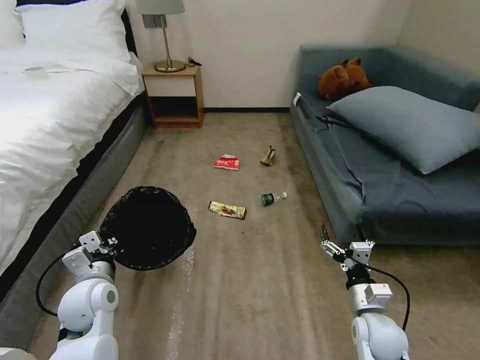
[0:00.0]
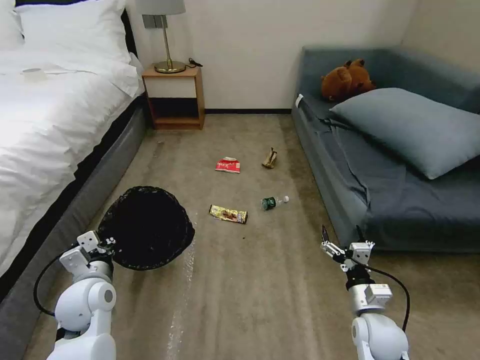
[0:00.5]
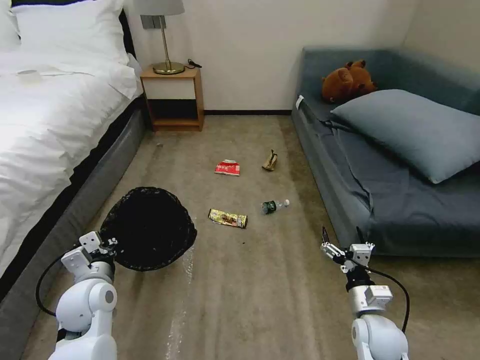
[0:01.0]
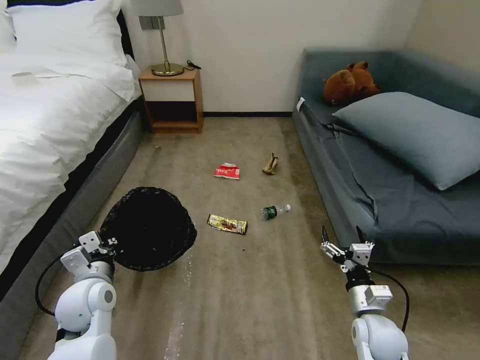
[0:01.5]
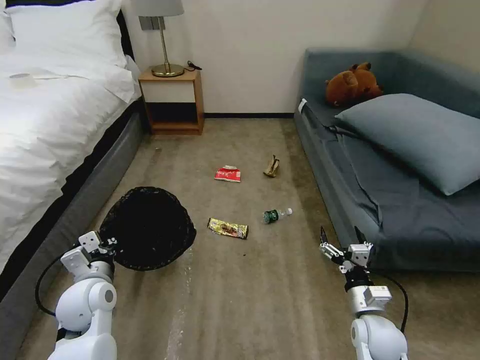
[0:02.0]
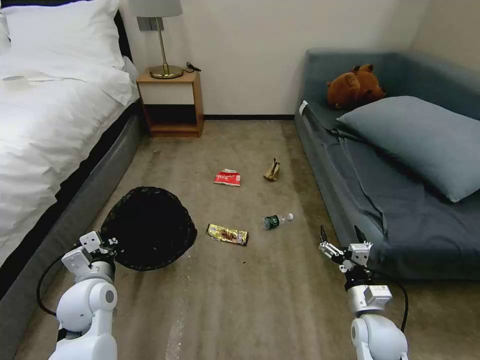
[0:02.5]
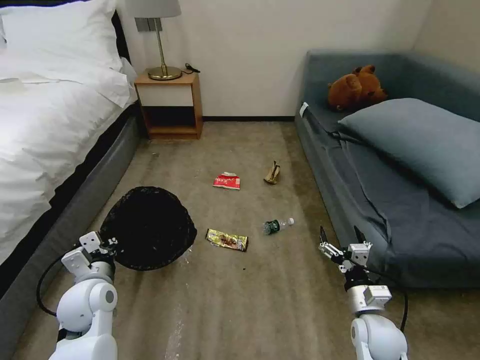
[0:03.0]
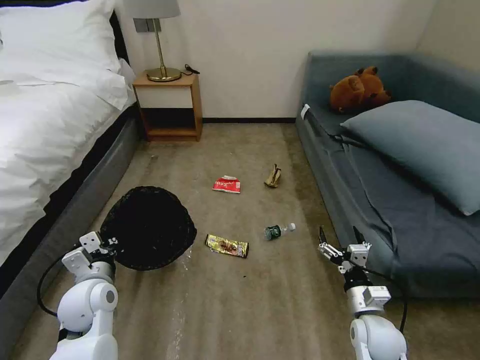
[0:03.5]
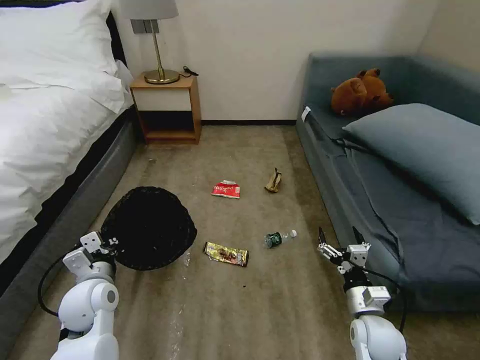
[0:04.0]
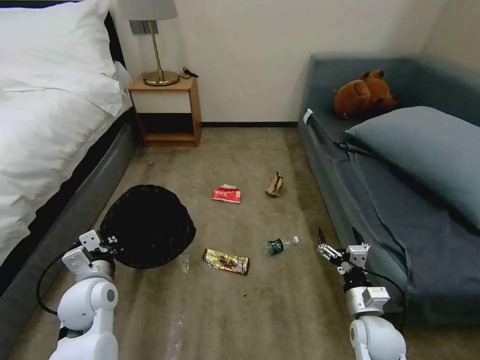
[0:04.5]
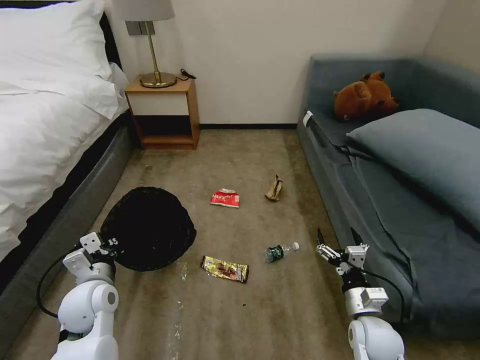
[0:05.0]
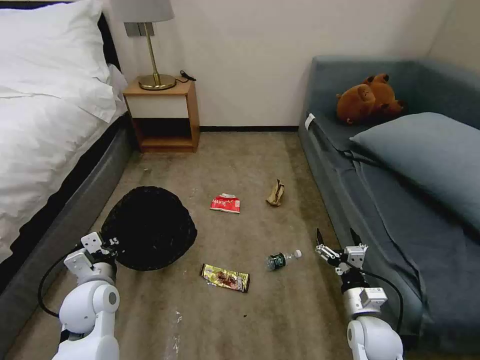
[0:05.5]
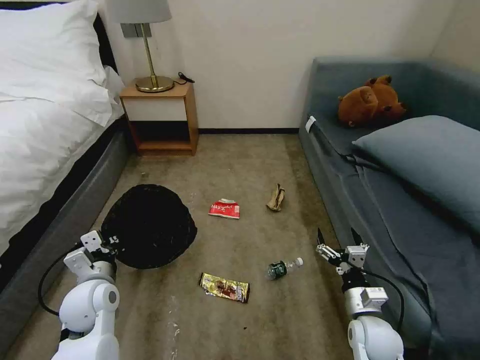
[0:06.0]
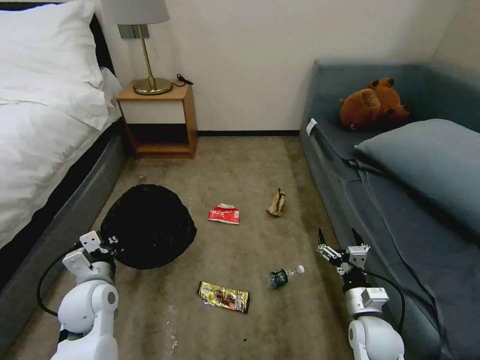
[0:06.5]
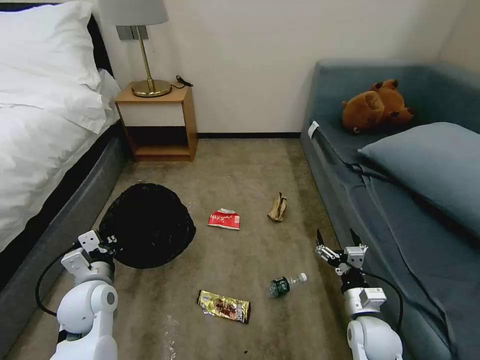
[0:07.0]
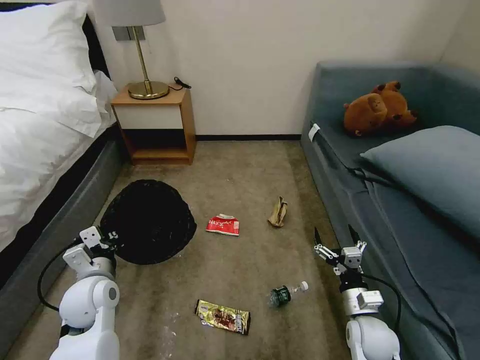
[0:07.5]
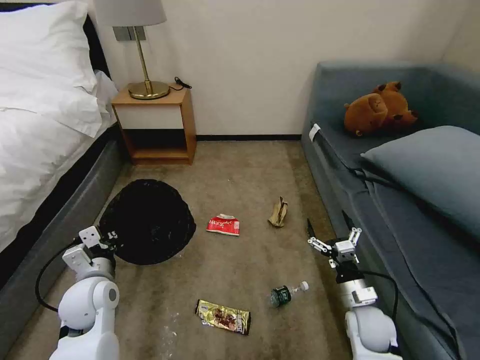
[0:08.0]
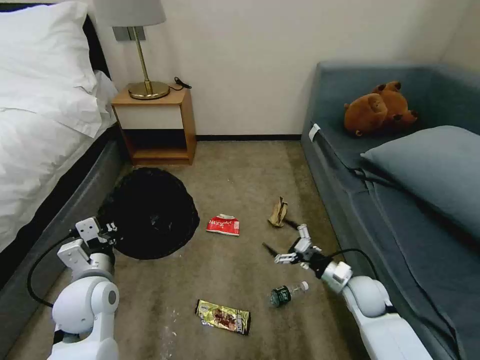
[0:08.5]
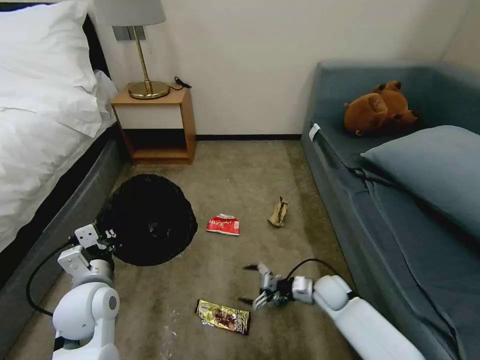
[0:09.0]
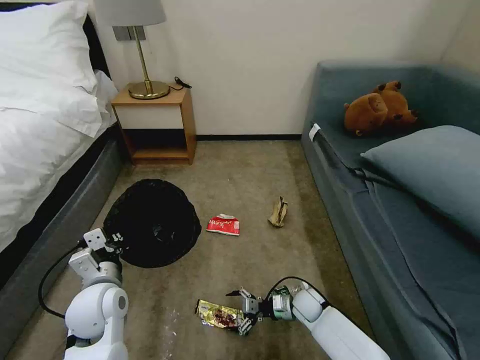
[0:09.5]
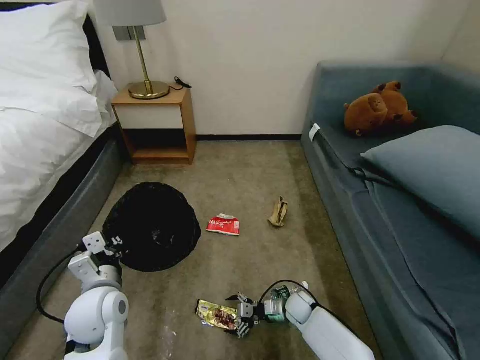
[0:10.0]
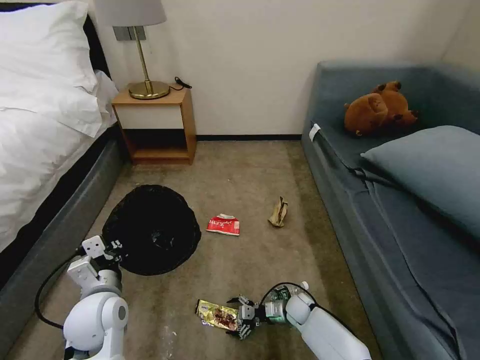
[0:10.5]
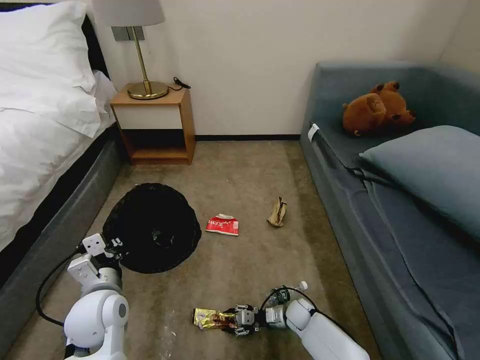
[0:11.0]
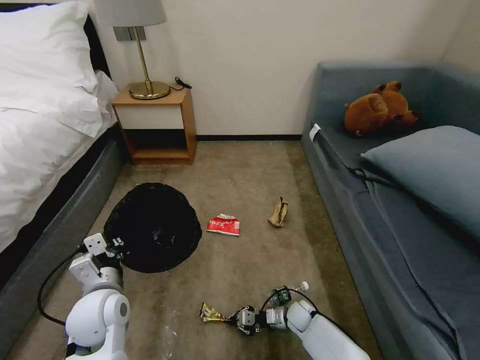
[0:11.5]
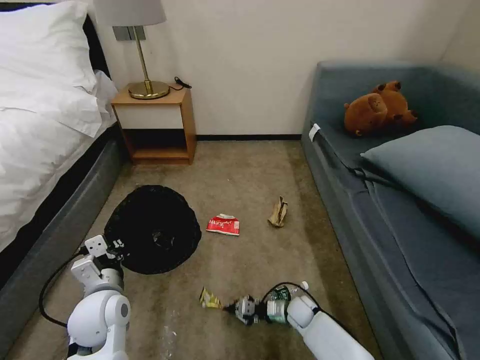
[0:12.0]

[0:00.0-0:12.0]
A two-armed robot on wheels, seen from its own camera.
Task of the whole recording: Pick up the trash bin, then pick up the garbage on the floor and place it into the trash bin.
0:00.0 to 0:02.0: The two grippers keep their place.
0:08.0 to 0:10.0: The right gripper goes about 20 cm downward, to the left and forward.
0:10.0 to 0:12.0: The right gripper closes up.

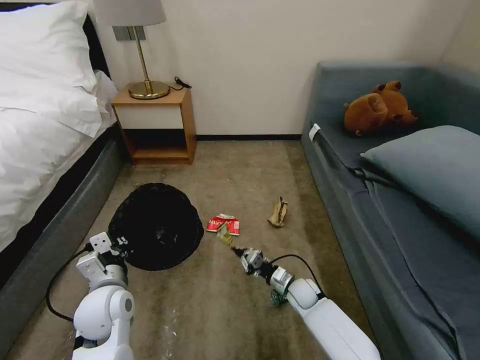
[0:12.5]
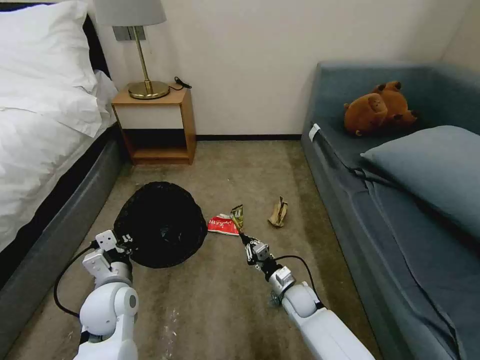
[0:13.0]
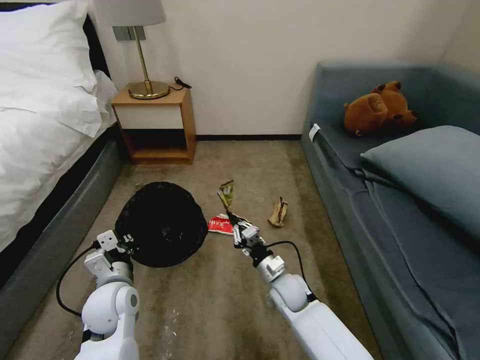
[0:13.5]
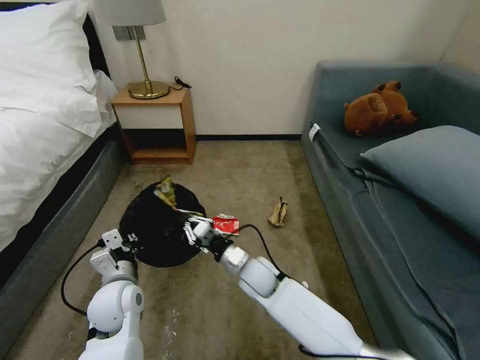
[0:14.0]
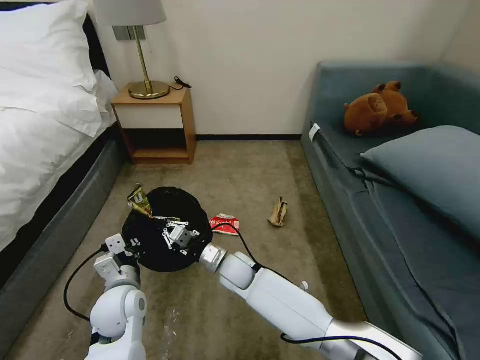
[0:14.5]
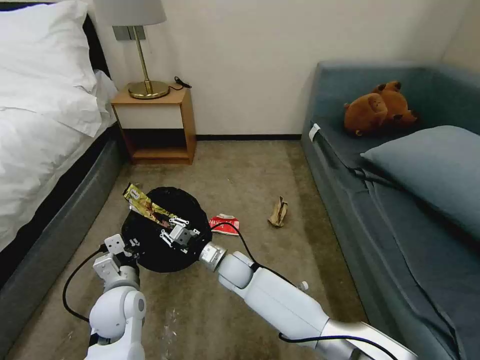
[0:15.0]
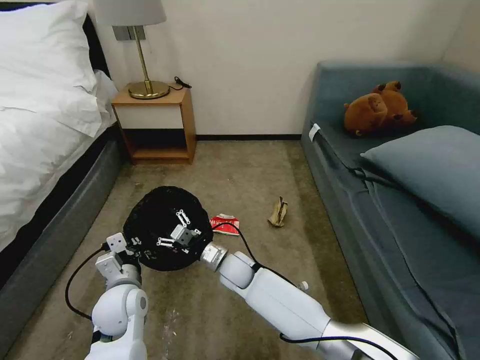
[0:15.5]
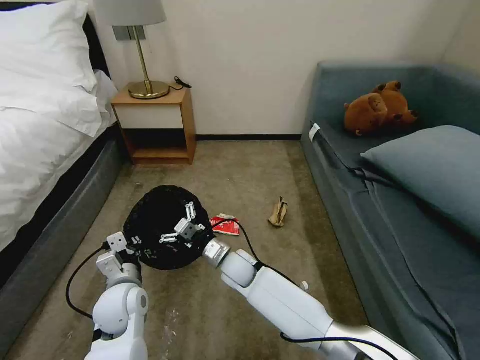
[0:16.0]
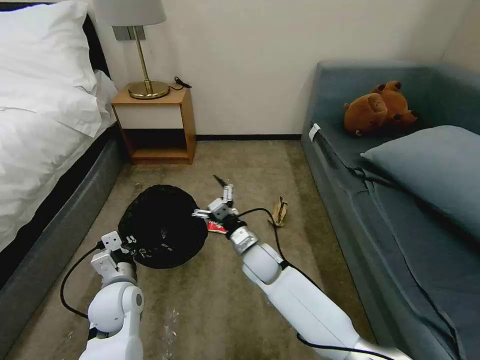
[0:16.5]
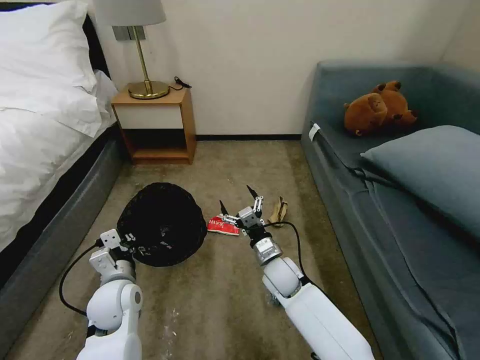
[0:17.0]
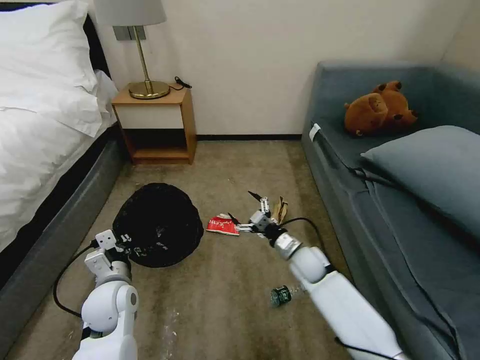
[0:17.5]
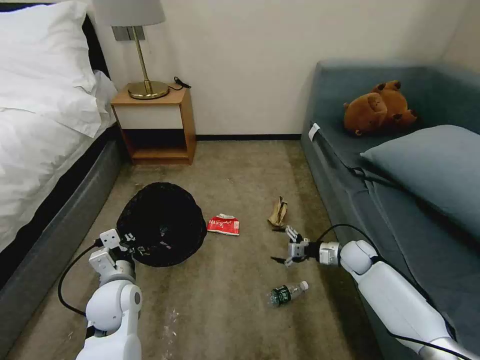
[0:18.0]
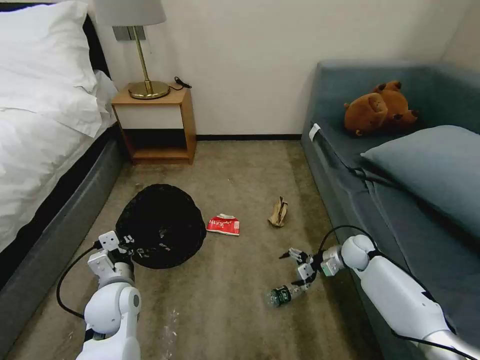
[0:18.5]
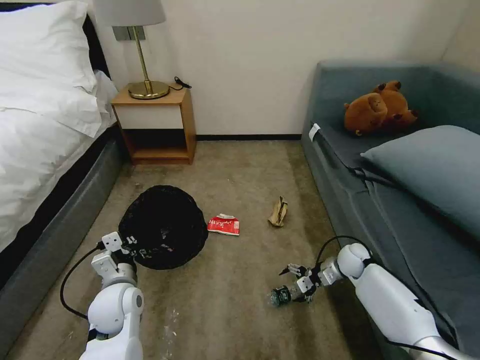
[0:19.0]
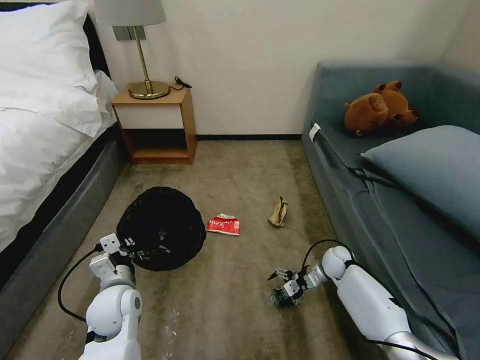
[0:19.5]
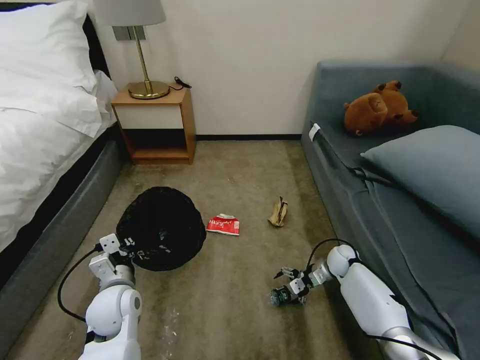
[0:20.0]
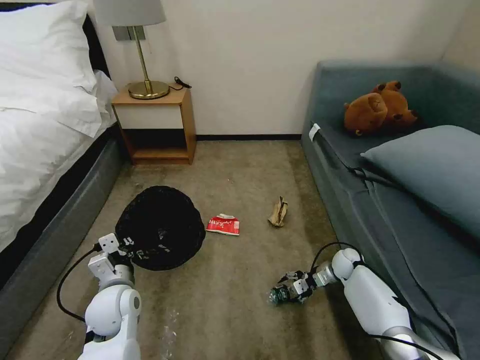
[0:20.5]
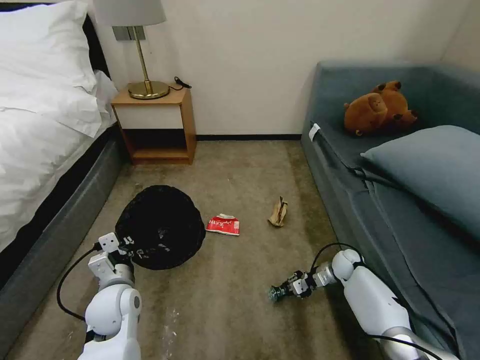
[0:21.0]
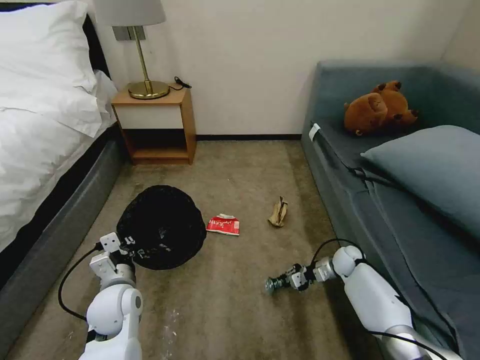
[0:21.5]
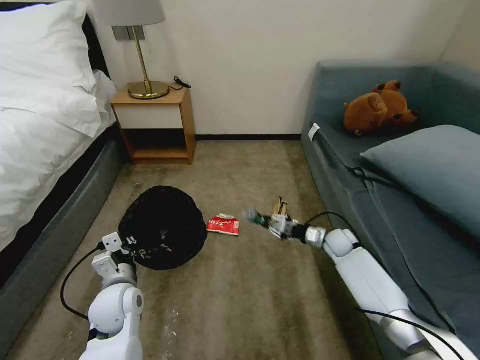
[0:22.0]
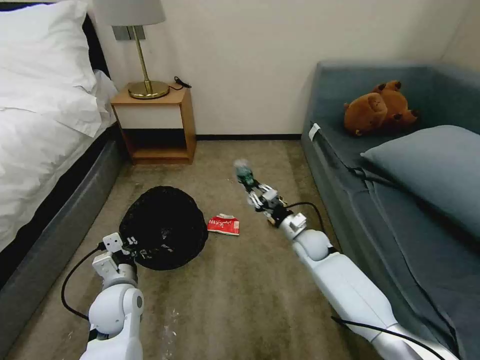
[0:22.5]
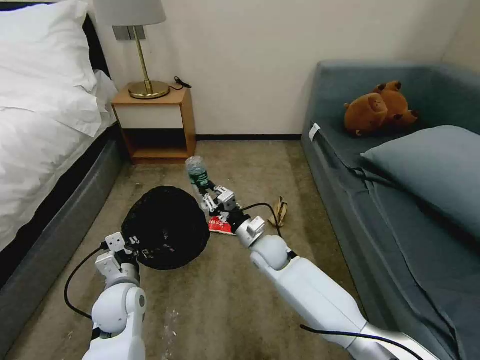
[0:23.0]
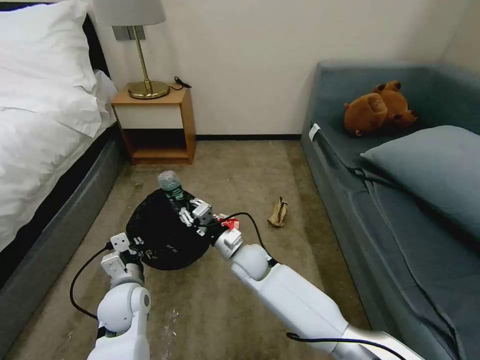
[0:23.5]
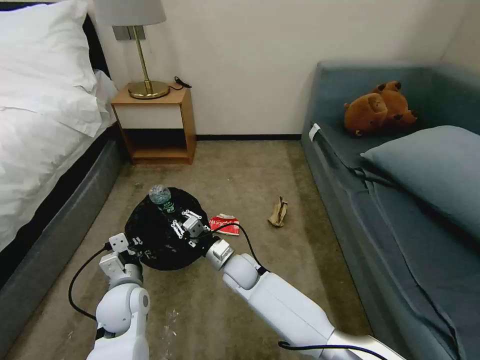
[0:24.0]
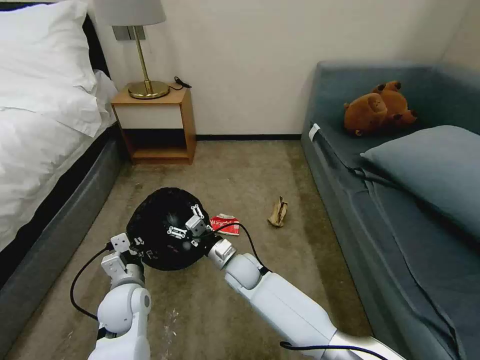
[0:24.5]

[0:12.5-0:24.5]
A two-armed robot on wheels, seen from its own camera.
Task of the whole recording: Pick up the trash bin, then pick up the garbage on the floor and place it into the trash bin.
0:12.5 to 0:14.5: The right gripper moves to the left and upward, approximately 25 cm.
0:14.5 to 0:16.5: The right gripper ends up roughly 5 cm from where it was, and opens.
0:16.5 to 0:18.5: The right gripper moves to the right, approximately 30 cm.
0:18.5 to 0:20.5: The right gripper goes about 10 cm downward.
0:20.5 to 0:22.5: The right gripper goes approximately 20 cm to the left and upward, and closes.
0:22.5 to 0:24.5: The right gripper moves to the left, about 20 cm, and opens.

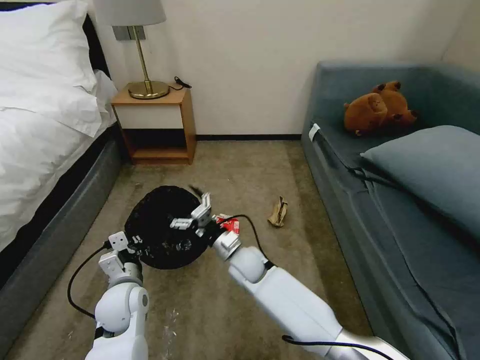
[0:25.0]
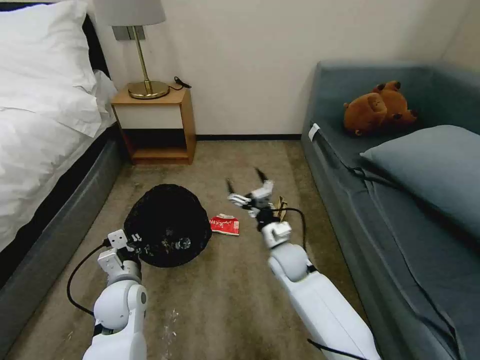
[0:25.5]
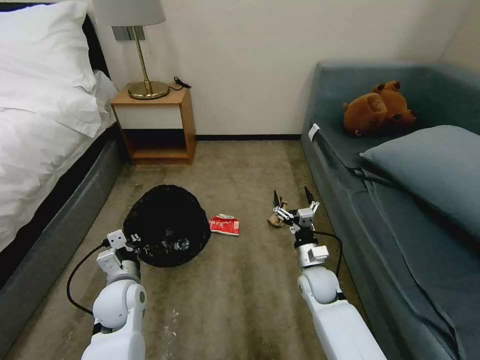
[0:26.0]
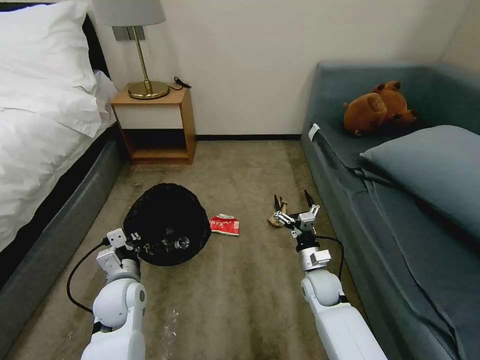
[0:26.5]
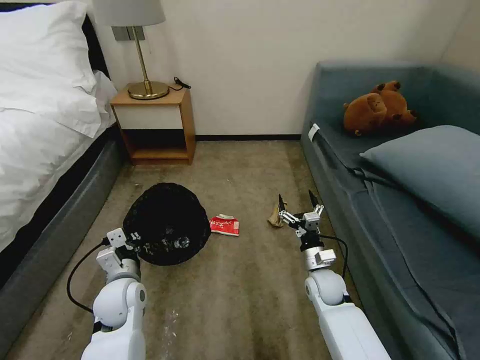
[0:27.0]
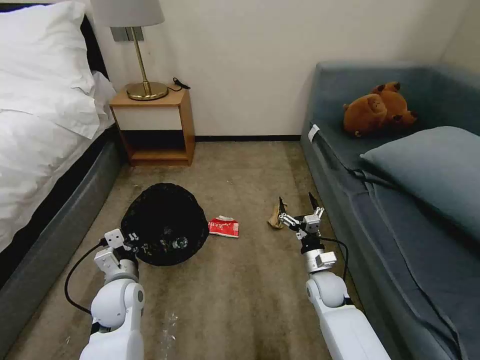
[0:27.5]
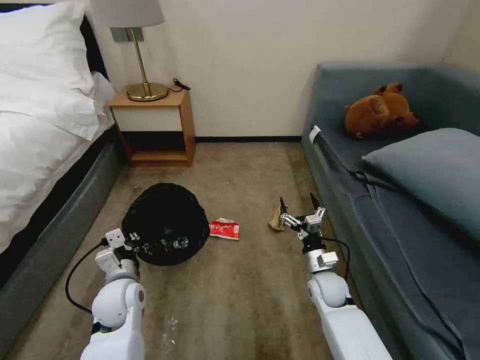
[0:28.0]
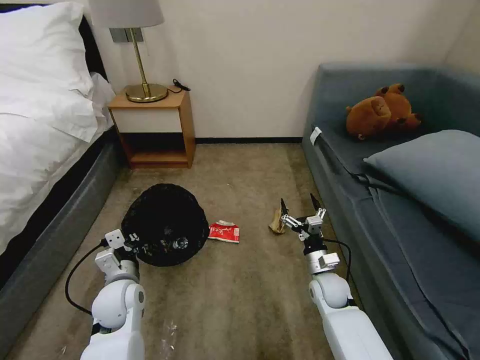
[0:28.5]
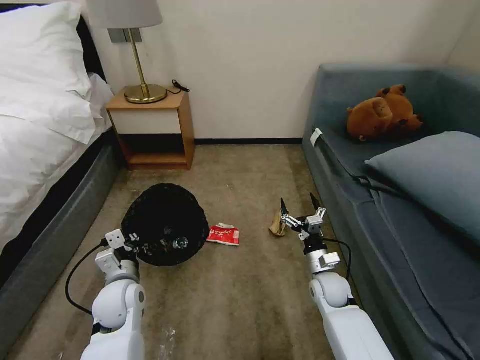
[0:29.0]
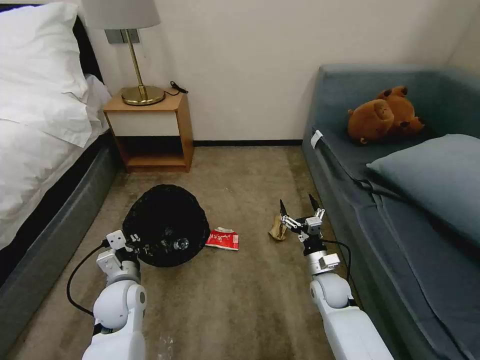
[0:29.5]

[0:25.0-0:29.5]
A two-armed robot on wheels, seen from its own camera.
Task of the whole recording: Pick up the trash bin, then pick up the garbage on the floor and place it into the trash bin.
0:25.0 to 0:27.0: The right gripper heads to the right, covering approximately 20 cm.
0:27.0 to 0:29.5: The grippers make only small movements.
